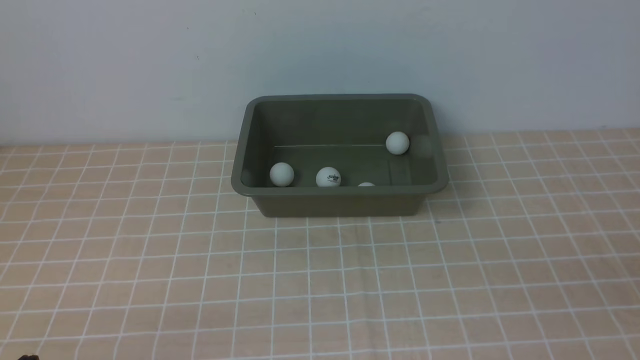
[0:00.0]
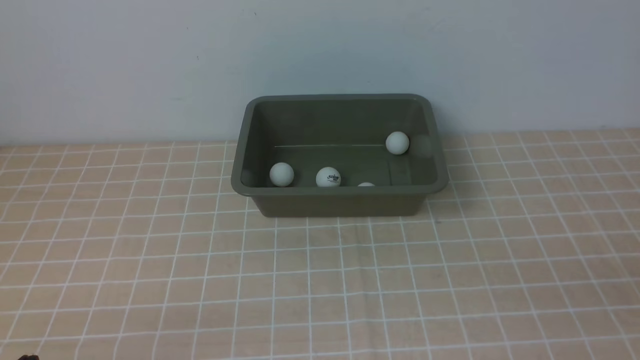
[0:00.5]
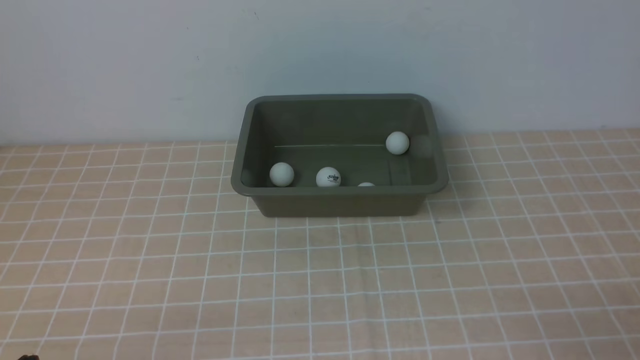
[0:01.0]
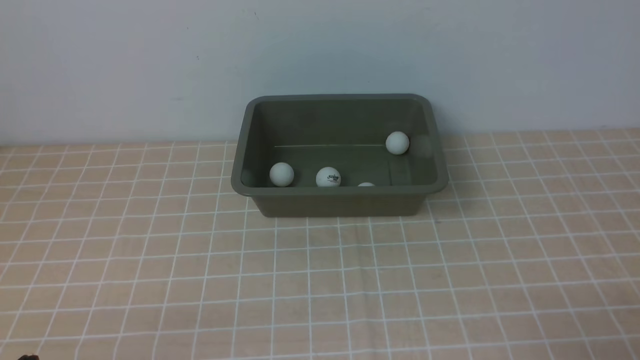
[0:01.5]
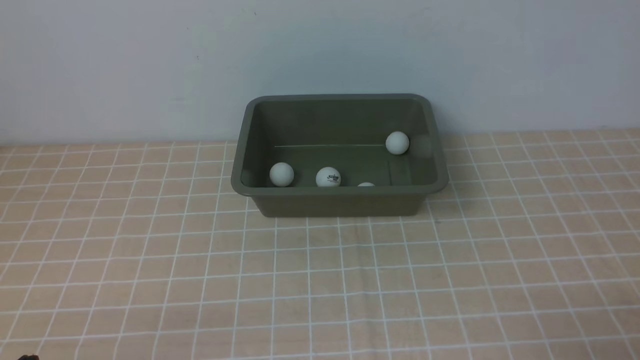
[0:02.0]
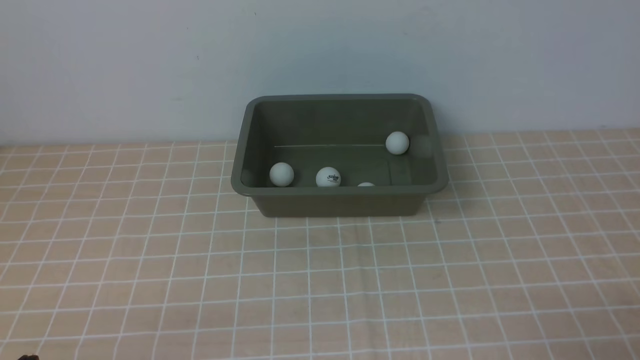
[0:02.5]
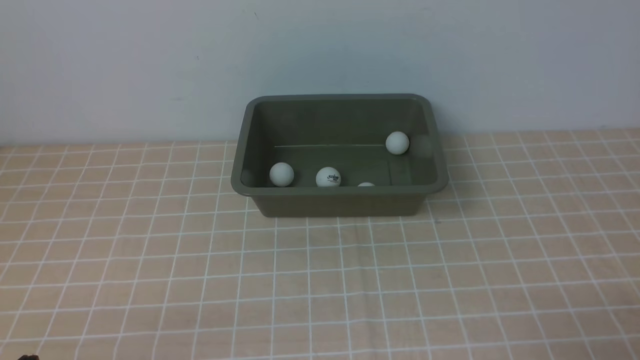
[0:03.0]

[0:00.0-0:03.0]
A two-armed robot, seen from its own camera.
0:01.5 to 0:03.0: Both grippers stay about where they are.
